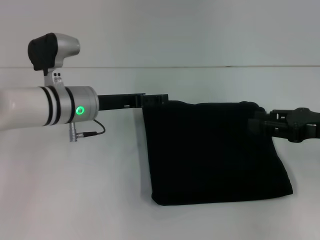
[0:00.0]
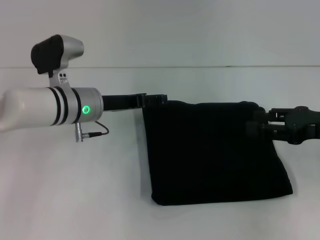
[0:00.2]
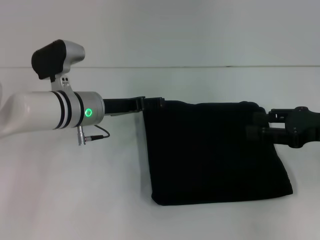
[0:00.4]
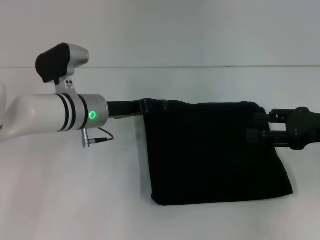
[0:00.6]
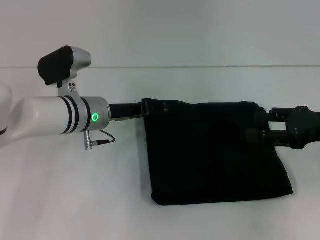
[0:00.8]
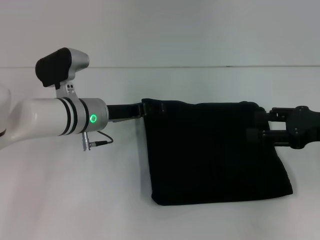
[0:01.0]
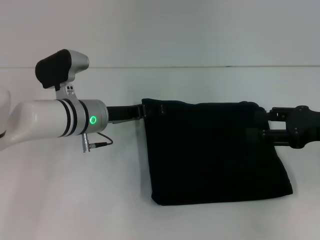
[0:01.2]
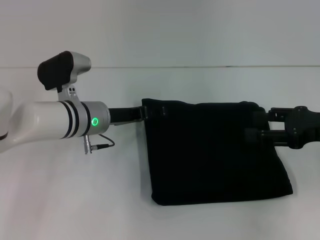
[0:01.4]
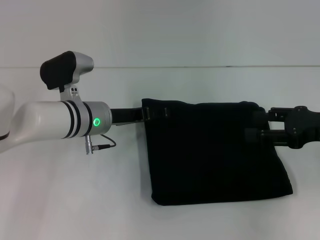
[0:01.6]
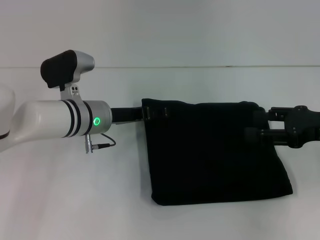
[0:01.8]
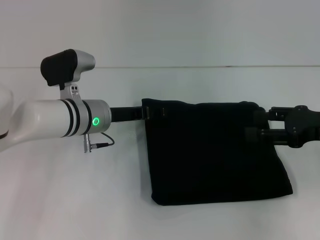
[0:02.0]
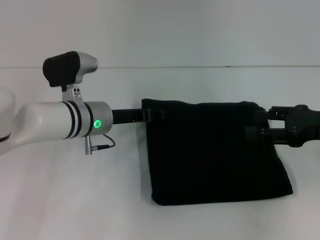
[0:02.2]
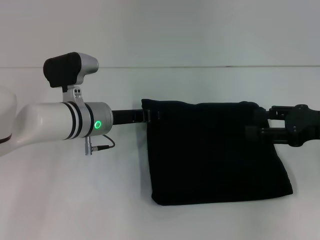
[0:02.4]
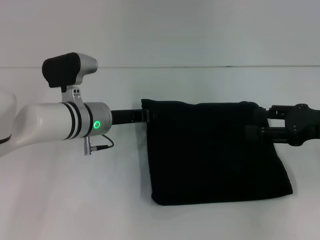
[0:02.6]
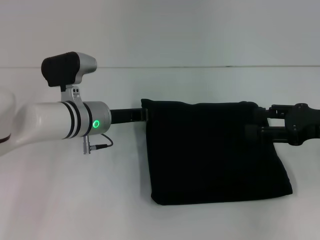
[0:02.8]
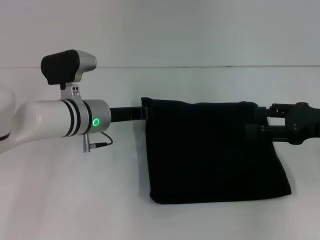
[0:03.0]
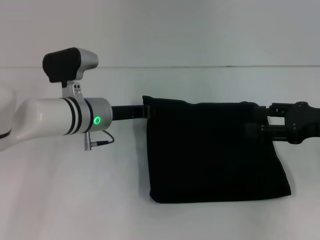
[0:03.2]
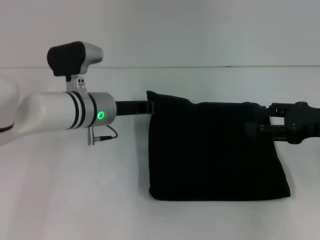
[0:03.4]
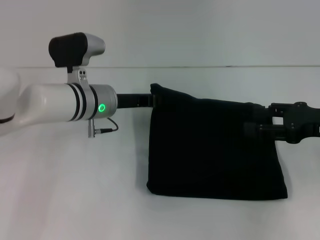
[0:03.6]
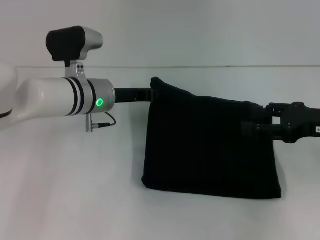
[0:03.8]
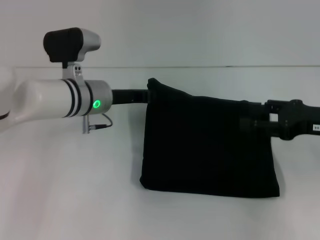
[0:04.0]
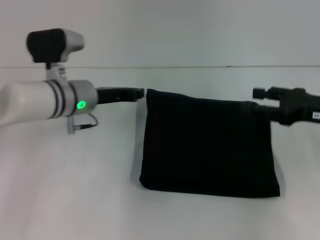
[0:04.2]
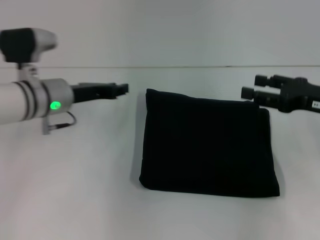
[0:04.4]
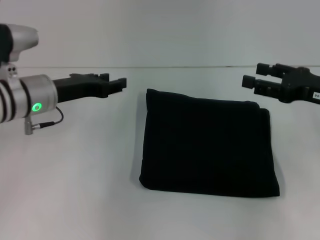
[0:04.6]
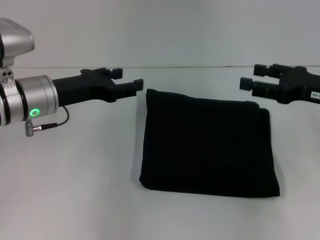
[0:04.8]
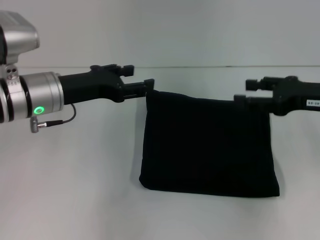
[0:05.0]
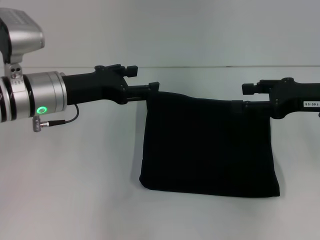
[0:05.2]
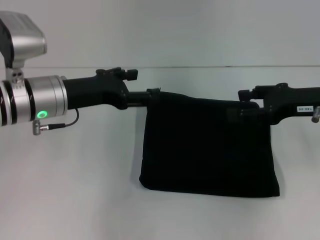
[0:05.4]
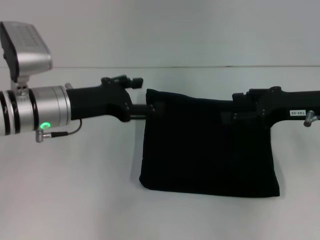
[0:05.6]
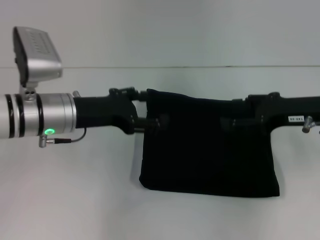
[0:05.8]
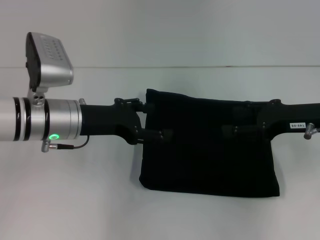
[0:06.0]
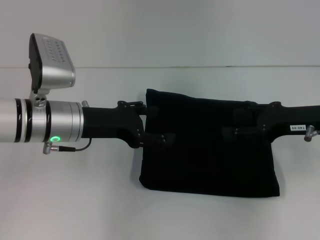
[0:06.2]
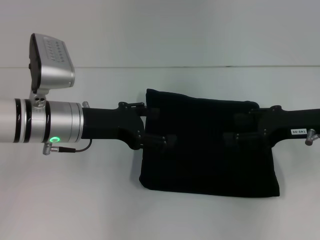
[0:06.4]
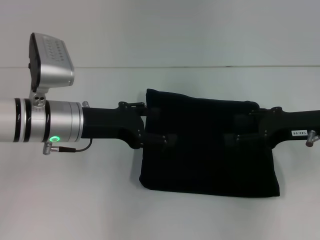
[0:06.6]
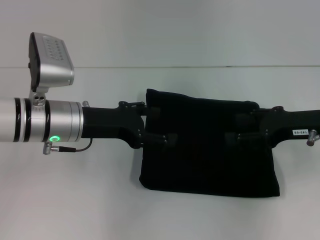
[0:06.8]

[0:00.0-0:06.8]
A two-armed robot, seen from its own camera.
0:00.0 to 0:01.4: The right gripper opens its fingers.
0:01.4 to 0:02.8: The left gripper closes.
0:02.8 to 0:04.0: The grippers stay close to where they were, moving slightly.
0:04.0 to 0:05.4: The left gripper is displaced to the left and backward by roughly 10 cm, and opens.
0:05.4 to 0:06.8: There are only small adjustments of the grippers.

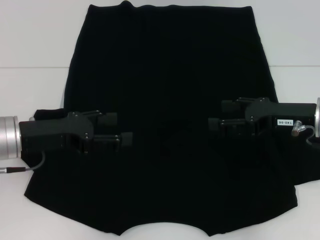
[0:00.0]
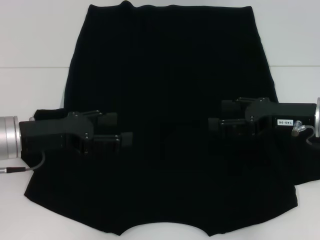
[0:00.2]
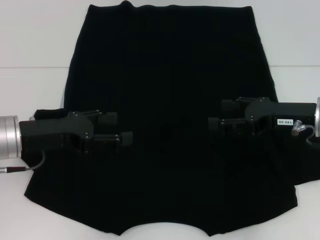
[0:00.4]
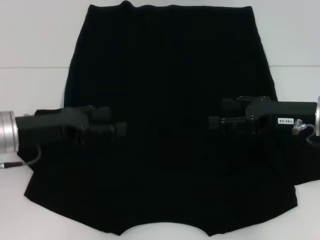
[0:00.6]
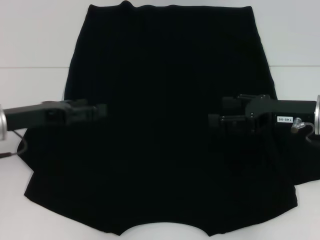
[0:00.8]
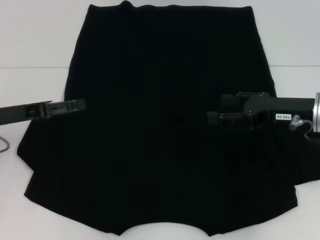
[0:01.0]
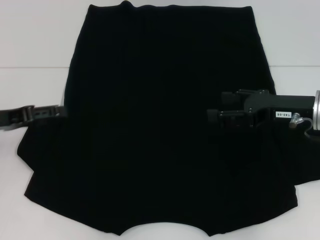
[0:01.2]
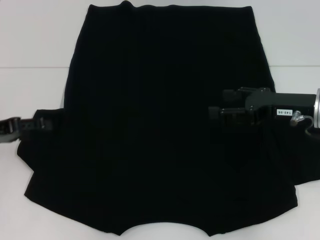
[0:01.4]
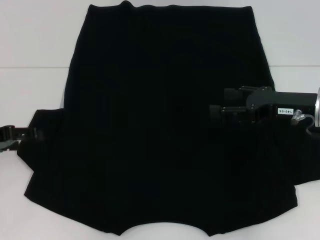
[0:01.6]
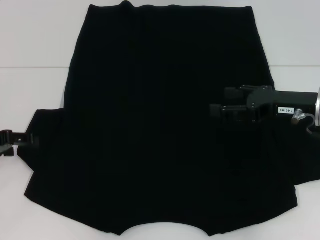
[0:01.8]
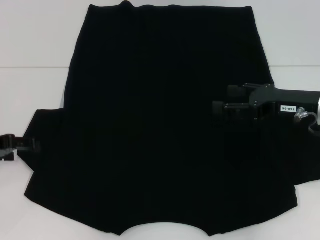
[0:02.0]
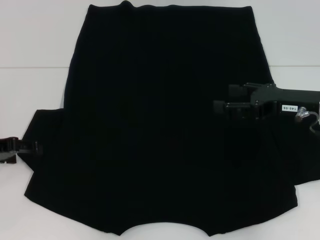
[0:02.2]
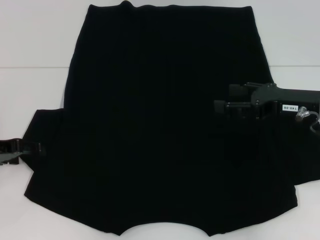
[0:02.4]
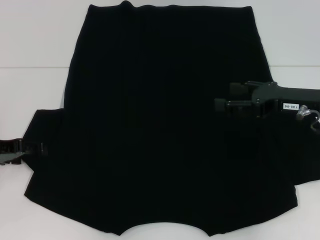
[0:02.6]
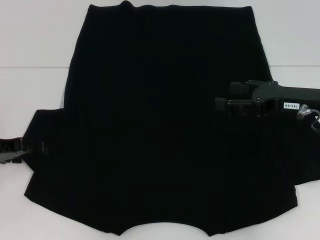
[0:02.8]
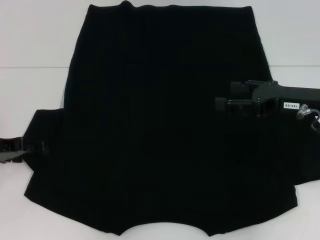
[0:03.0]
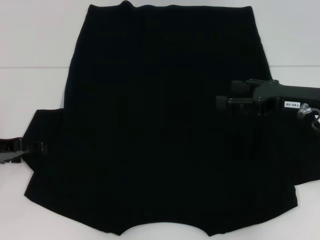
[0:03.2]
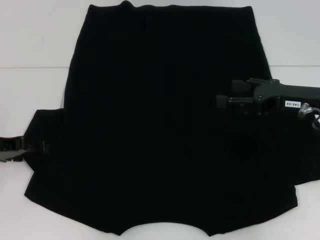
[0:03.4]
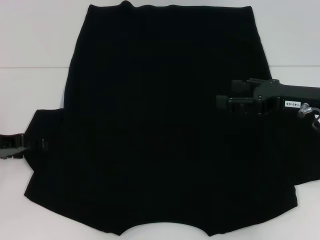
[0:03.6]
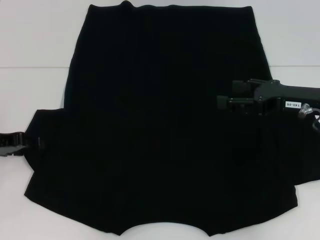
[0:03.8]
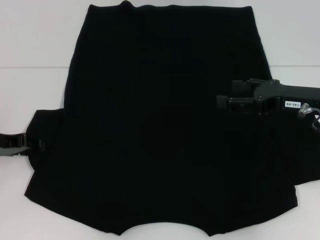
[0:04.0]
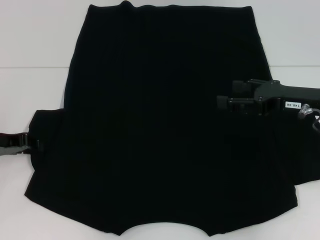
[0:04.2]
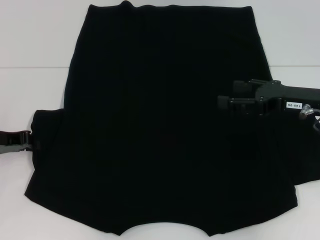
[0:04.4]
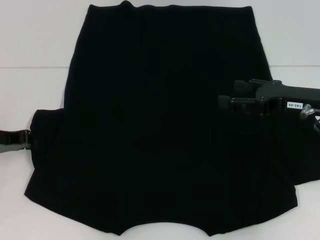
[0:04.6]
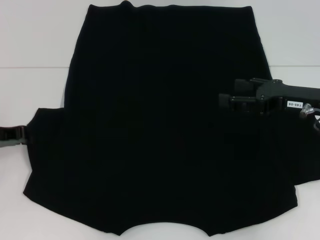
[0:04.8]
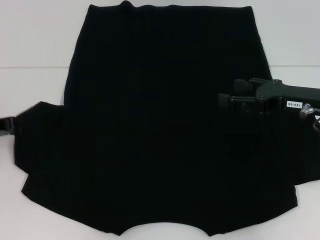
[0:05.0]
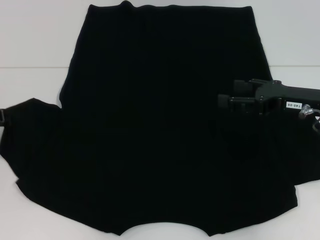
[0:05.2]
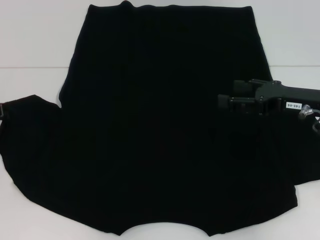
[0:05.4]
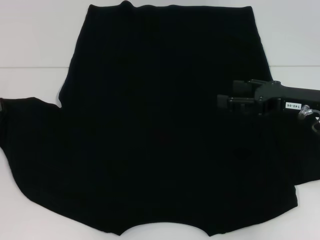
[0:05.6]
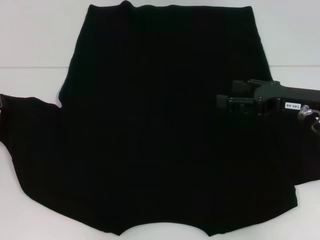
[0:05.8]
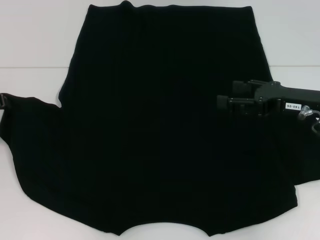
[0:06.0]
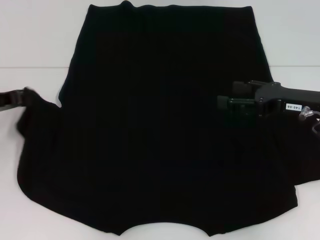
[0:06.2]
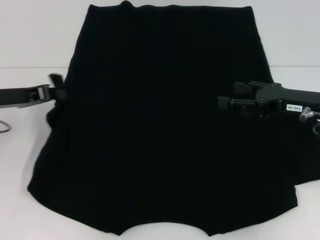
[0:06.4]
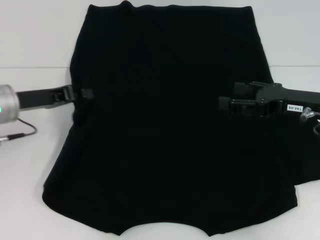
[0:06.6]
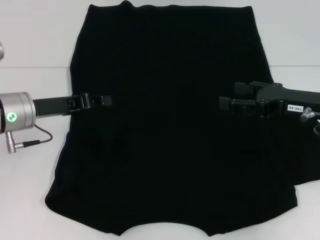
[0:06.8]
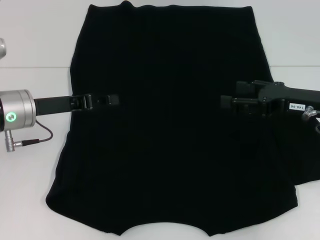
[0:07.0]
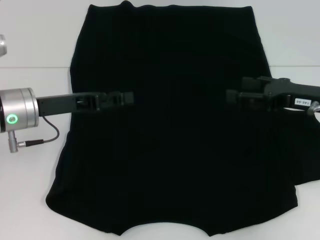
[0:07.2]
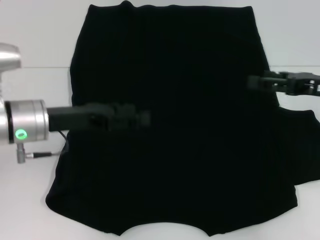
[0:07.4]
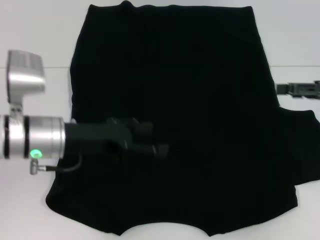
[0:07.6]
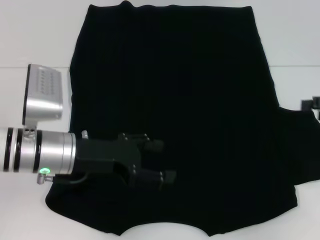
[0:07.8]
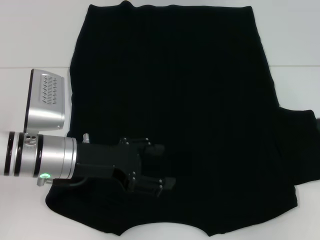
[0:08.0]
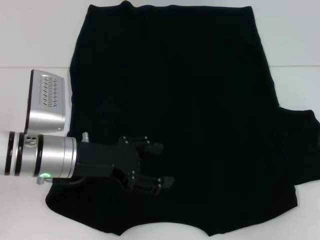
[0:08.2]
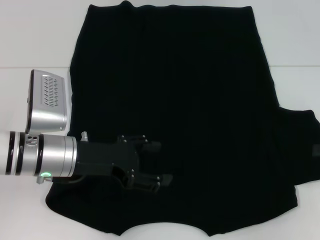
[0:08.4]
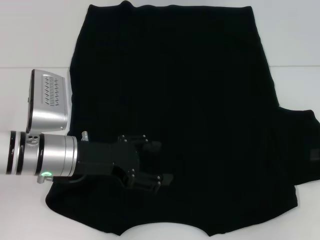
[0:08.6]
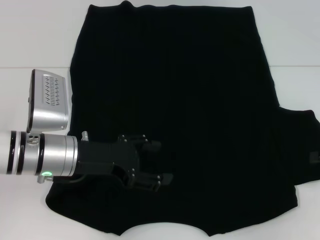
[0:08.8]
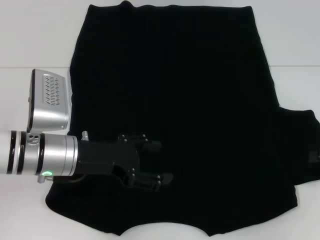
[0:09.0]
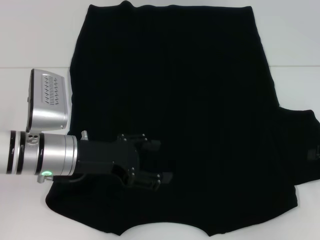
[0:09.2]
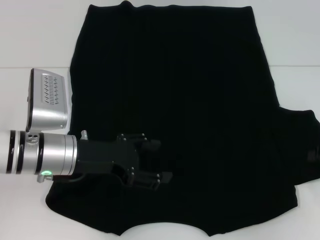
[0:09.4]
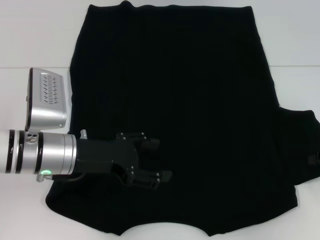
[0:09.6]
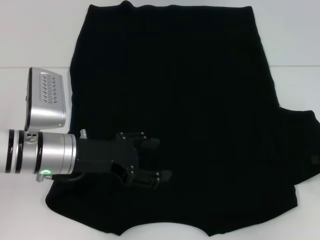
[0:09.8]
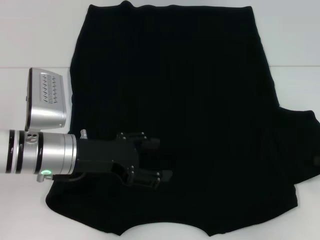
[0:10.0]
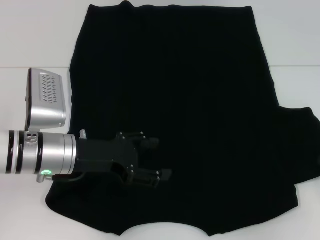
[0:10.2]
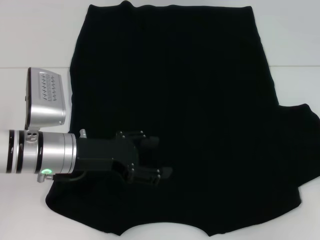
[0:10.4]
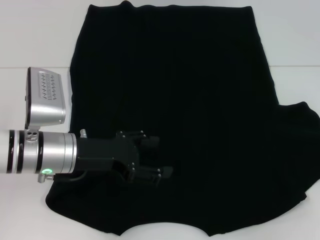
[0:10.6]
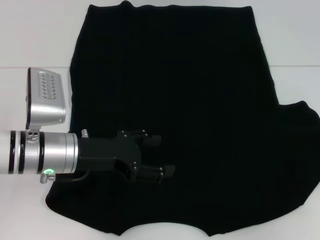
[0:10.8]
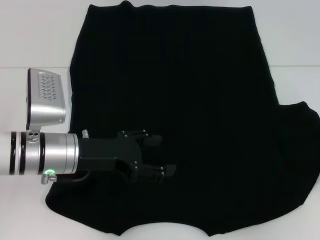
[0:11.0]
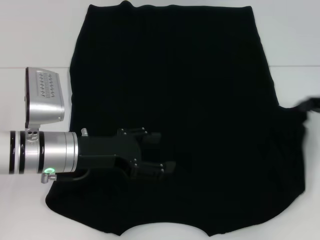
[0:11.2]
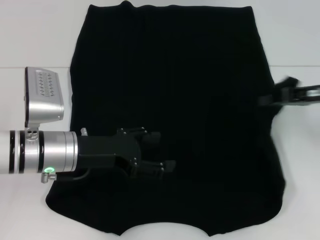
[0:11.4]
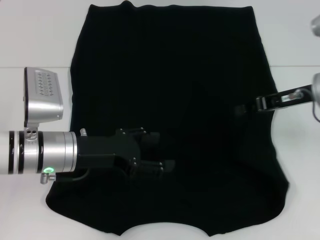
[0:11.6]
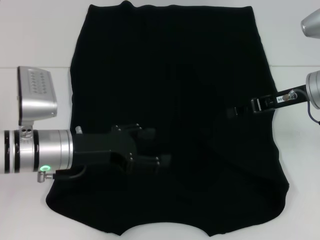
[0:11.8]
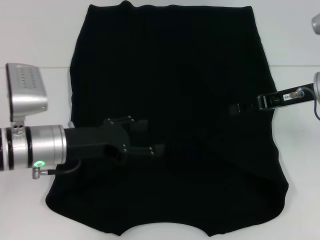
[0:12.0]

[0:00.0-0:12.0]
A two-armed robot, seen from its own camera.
Step, 0:00.0 to 0:07.2: Fold the bottom left sleeve with your left hand.
Step, 0:07.4 to 0:12.0: Fold the bottom right sleeve with your right hand.
0:00.0 to 0:01.6: The left gripper is displaced to the left by approximately 10 cm.
0:01.6 to 0:03.0: The grippers make only small movements.
0:03.0 to 0:04.4: The left gripper closes.
0:04.4 to 0:06.0: The grippers stay close to where they were, moving slightly.
0:06.0 to 0:07.6: The right gripper moves to the right, approximately 10 cm. The left gripper moves to the right, approximately 15 cm, and opens its fingers.
0:07.6 to 0:09.0: The right gripper goes approximately 5 cm downward.
0:09.0 to 0:10.4: The right gripper closes.
0:10.4 to 0:12.0: The right gripper shifts roughly 15 cm to the left, forward and upward.

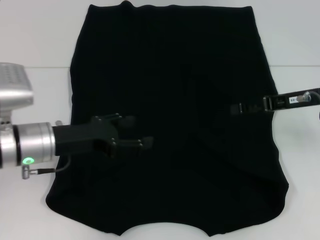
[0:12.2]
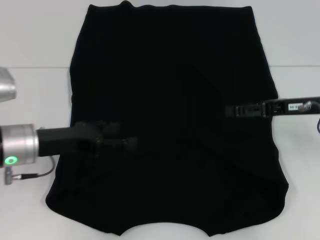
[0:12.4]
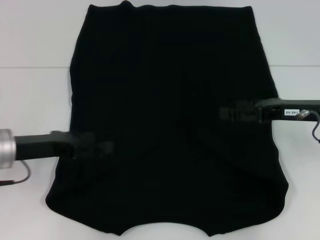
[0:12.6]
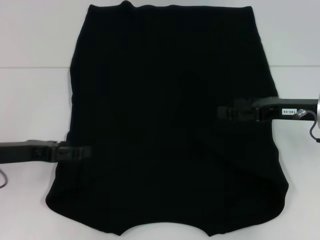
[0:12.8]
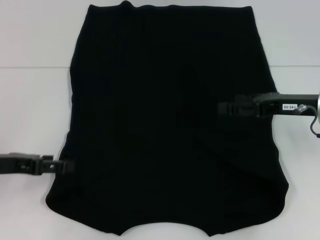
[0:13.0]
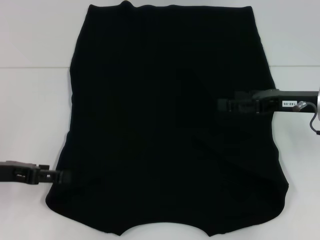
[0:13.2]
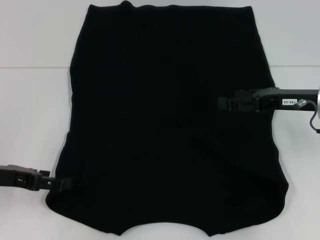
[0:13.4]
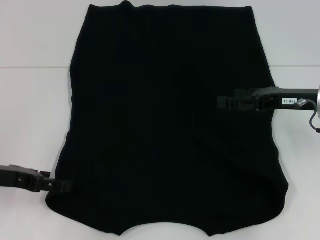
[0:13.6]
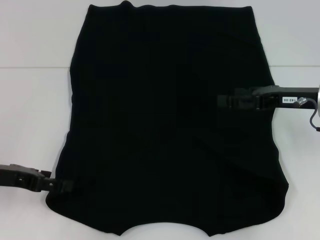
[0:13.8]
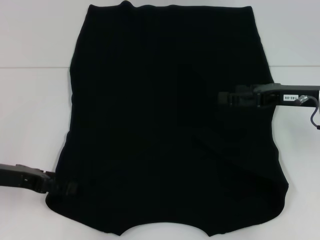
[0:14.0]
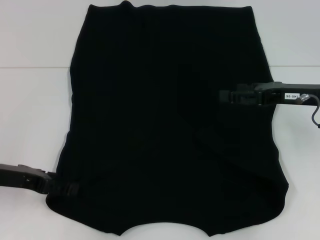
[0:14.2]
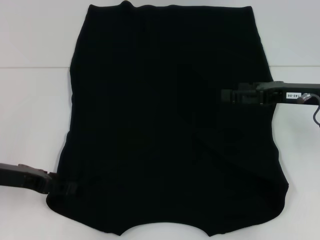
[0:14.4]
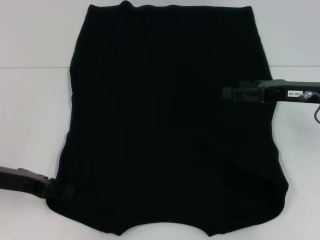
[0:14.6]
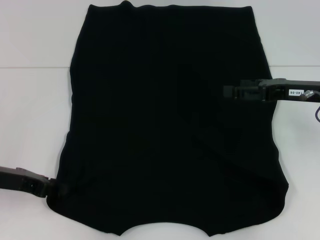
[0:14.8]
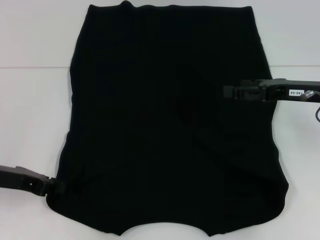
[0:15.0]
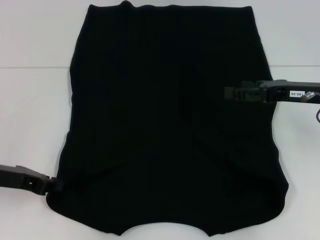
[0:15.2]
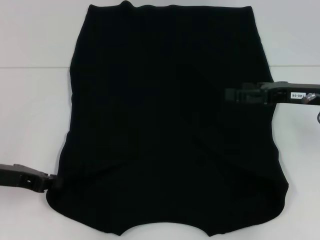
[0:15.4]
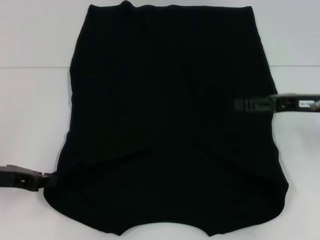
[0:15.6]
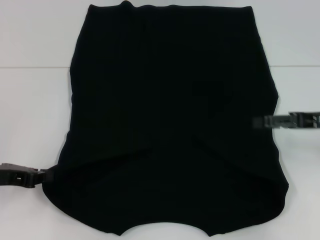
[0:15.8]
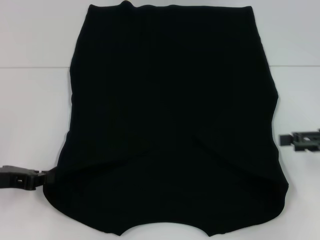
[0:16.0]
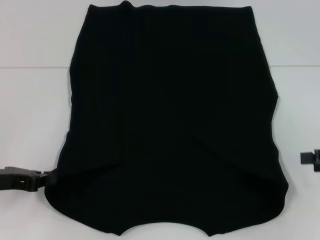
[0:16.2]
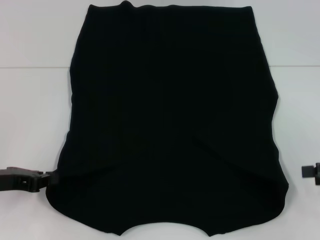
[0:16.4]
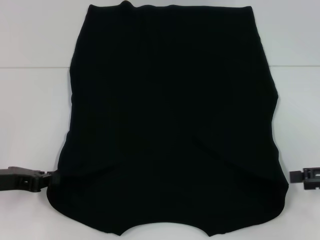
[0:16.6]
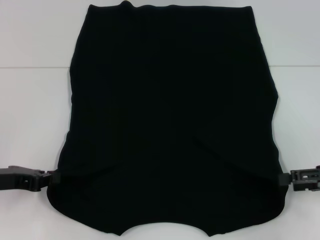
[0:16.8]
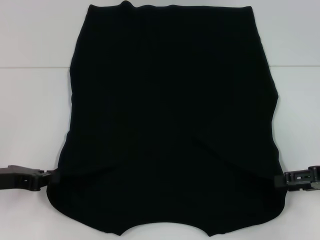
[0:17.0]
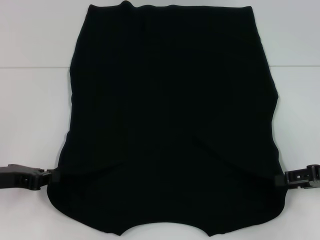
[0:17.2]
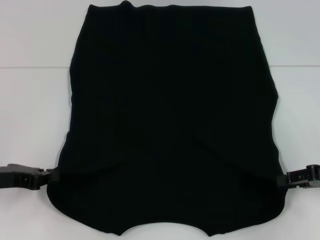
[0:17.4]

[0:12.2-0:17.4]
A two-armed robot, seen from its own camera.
0:12.2 to 0:14.0: The right gripper opens its fingers, while the left gripper travels to the left by some 10 cm.
0:14.0 to 0:15.6: The left gripper closes up.
0:15.6 to 0:17.4: The right gripper is displaced backward and to the right by about 10 cm.
